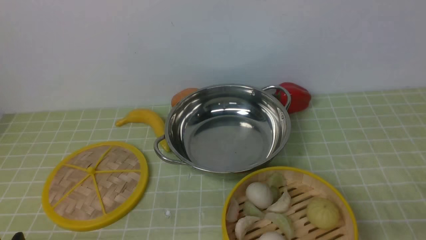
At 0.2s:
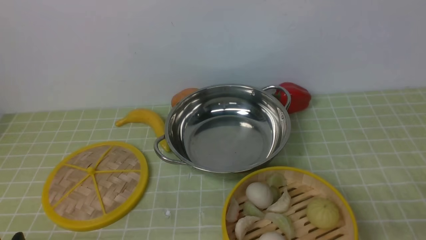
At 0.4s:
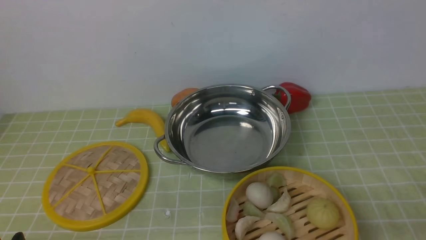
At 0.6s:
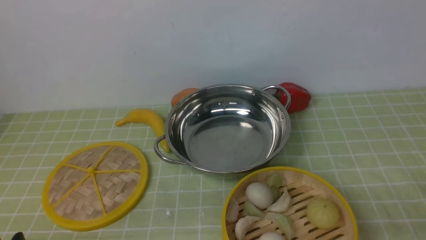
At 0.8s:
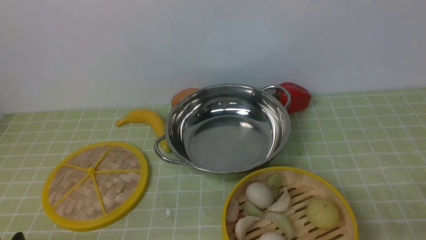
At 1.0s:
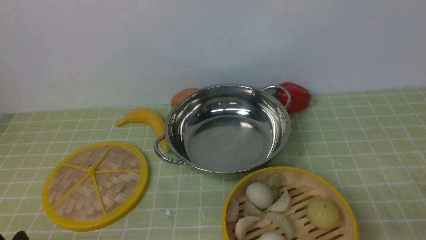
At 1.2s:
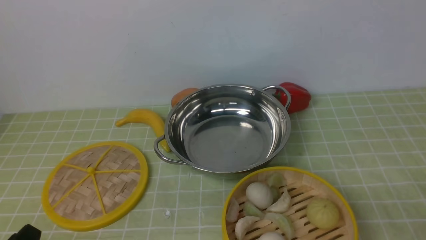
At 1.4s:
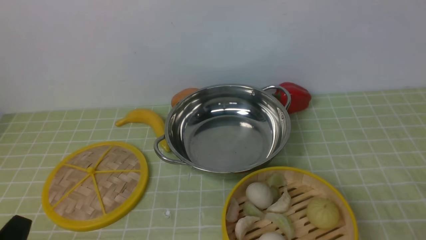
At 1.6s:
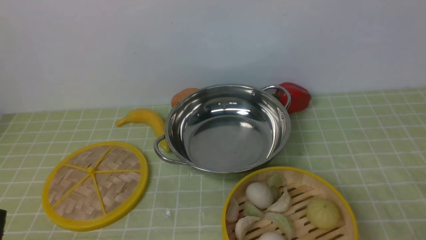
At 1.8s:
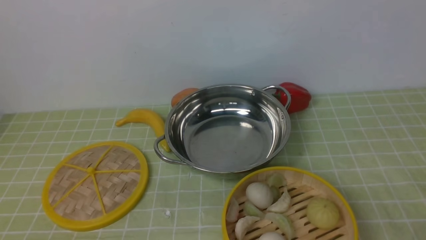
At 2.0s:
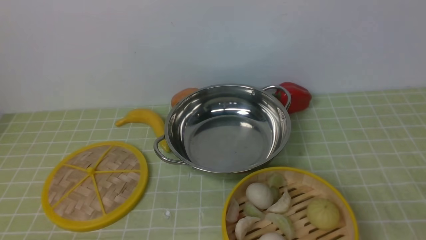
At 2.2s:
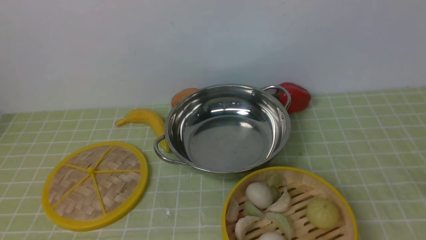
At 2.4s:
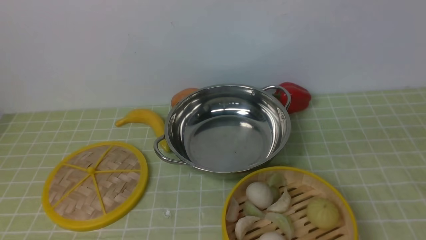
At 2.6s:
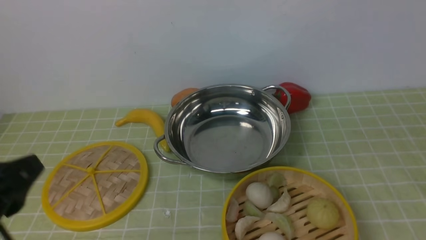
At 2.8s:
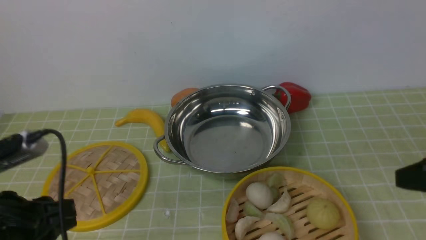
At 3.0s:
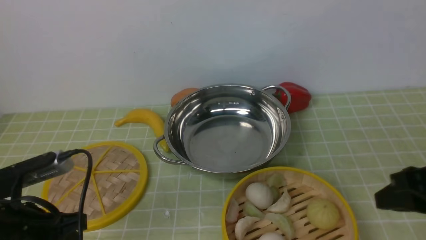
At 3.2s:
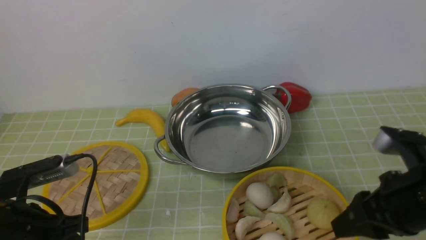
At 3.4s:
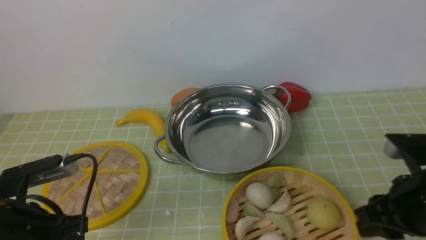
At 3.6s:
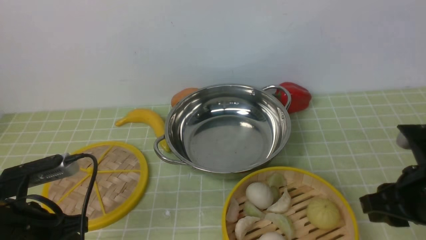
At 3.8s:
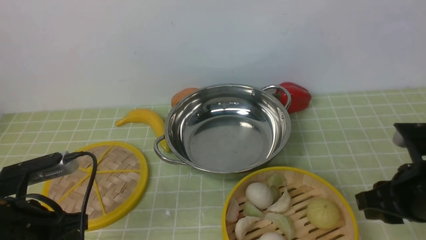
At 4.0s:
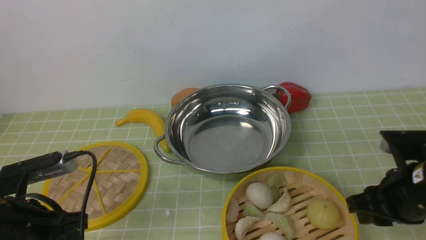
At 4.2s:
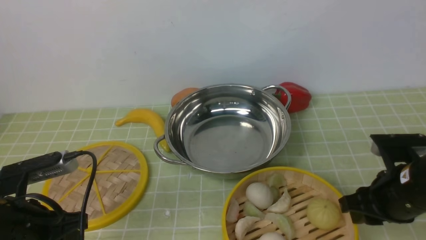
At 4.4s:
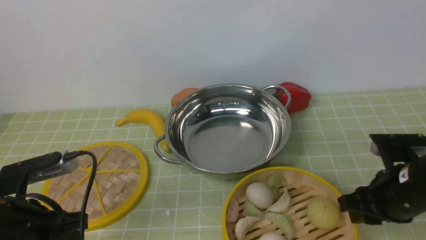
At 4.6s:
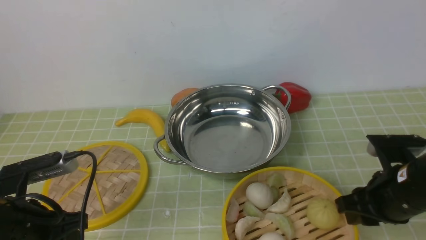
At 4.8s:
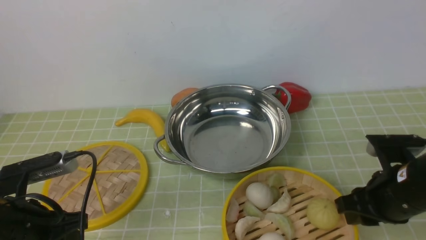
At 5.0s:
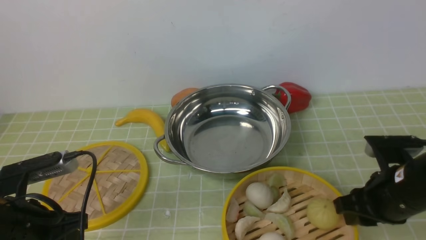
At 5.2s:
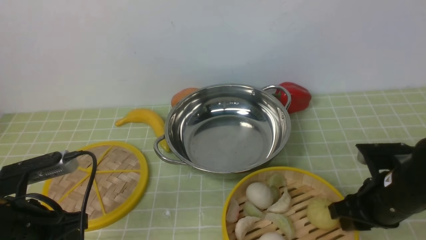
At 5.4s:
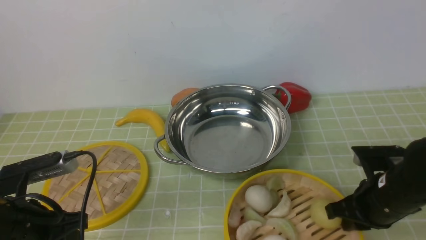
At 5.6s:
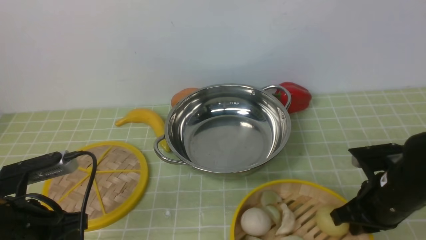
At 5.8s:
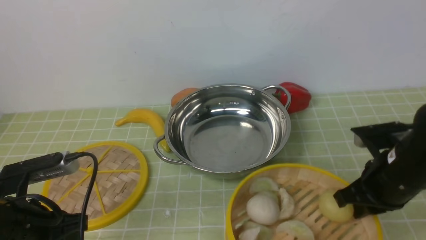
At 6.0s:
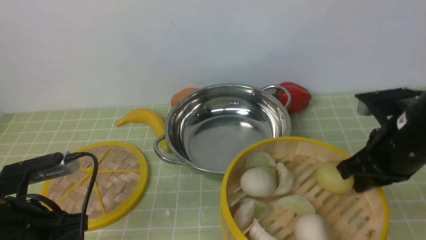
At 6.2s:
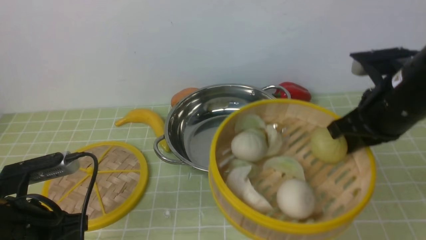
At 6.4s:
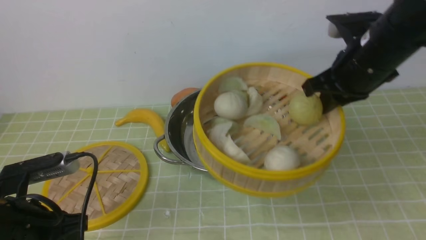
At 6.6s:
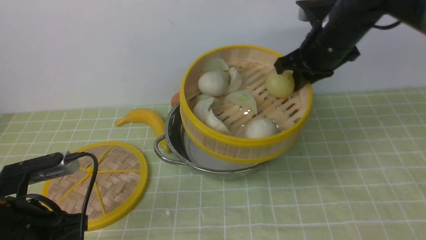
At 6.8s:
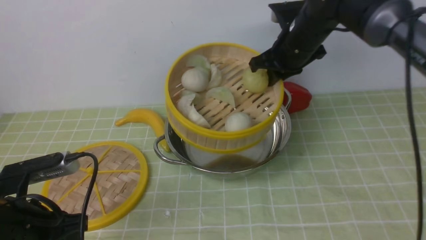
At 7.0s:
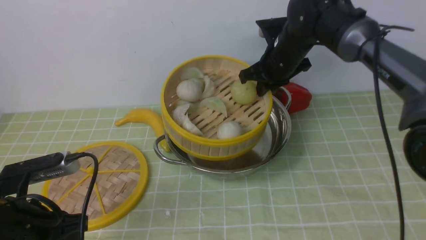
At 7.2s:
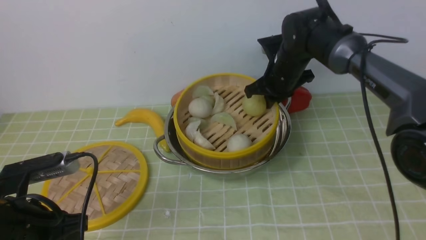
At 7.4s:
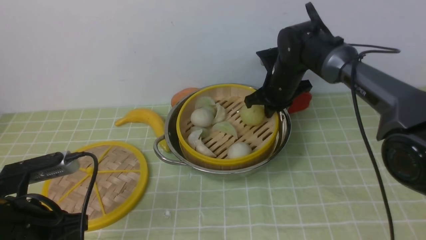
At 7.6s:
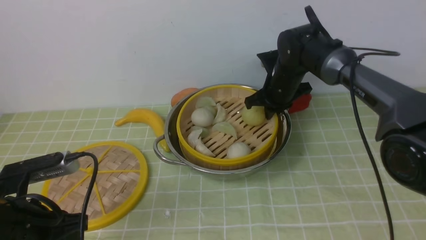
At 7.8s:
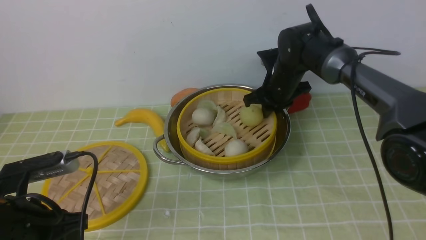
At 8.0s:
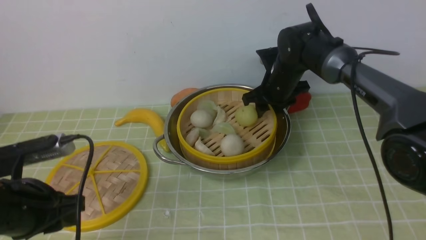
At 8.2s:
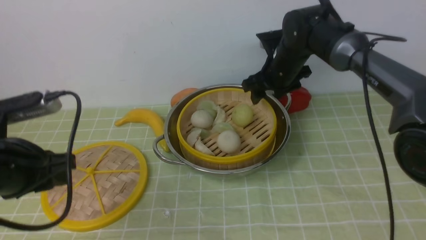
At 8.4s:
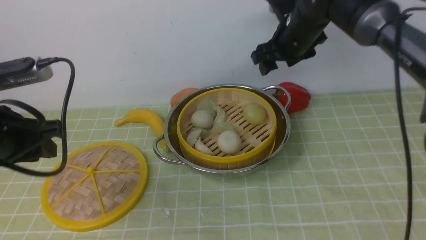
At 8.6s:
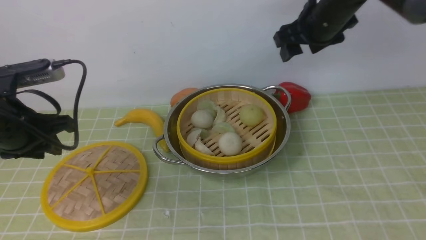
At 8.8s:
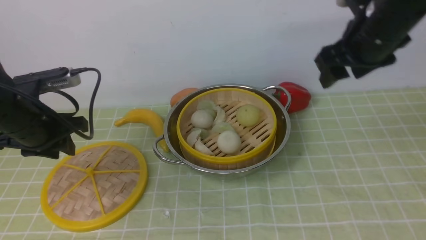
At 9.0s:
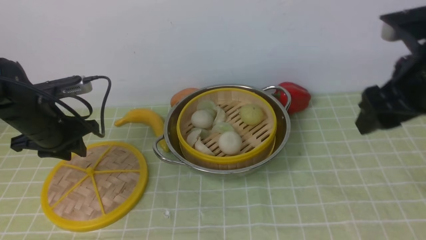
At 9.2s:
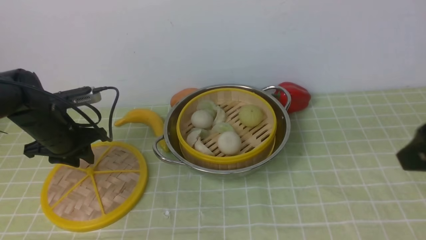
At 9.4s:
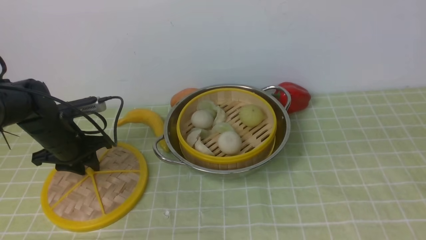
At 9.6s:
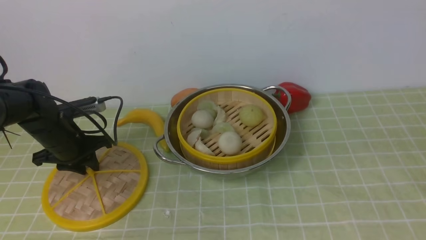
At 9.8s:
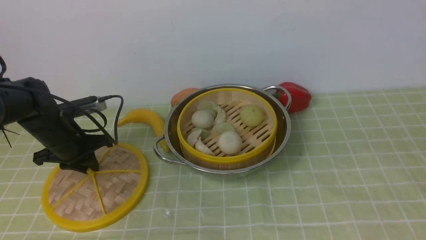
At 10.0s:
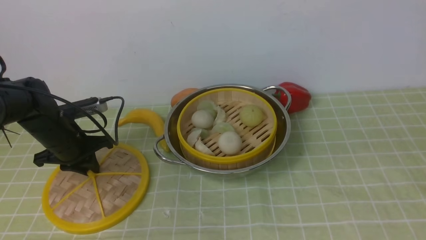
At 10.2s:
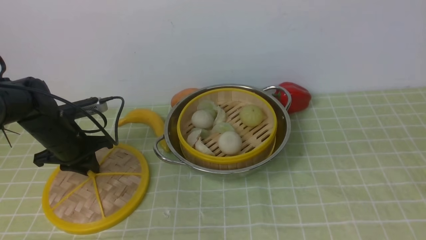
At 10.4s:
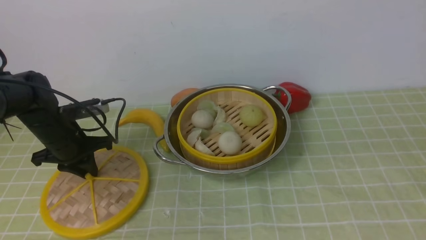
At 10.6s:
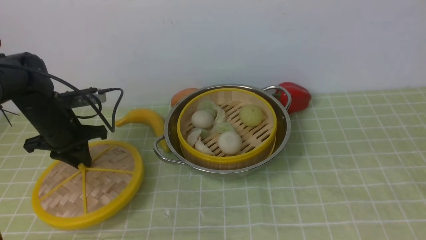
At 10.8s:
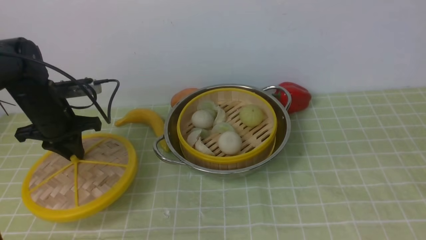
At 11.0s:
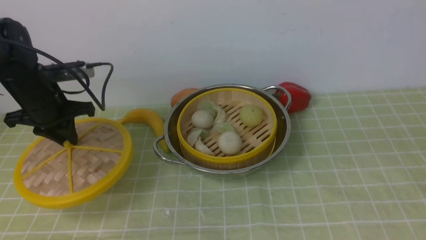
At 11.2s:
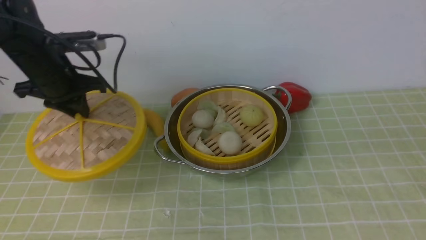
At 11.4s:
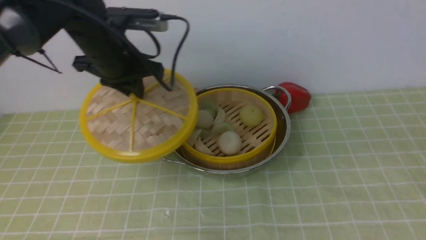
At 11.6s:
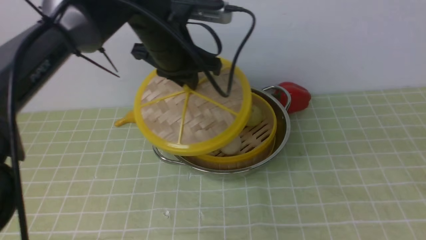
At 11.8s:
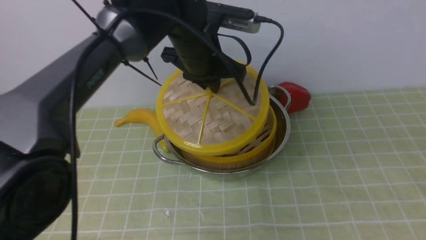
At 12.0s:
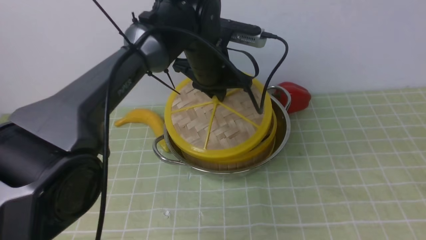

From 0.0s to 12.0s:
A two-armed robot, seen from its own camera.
Task of the whole recording: place the steamer in the pot on the green tablecloth, and put the lid on the steamer.
Step, from 0.0s to 6.2s: use the right arm to lift the steamer closest to it.
Step, from 6.4s to 8.4s: use the right arm to put the steamer into the iron steamer pot in the middle.
Step, from 8.6s to 11.2s: use the left arm to lift the lid of the steamer.
From 1.6s to 3.0s: The right gripper heads forward and upward, covering about 15 cm. The left gripper goes about 10 cm forward.
From 3.0s to 4.4s: The right gripper travels downward by some 5 cm.
From 4.4s to 6.0s: The right gripper heads upward, covering about 5 cm.
From 6.0s to 7.6s: The right gripper heads forward and to the left, covering roughly 25 cm.
From 7.6s to 9.0s: The left gripper shifts about 20 cm forward, while the right gripper goes roughly 30 cm backward, upward and to the right, and opens its fingers.
From 9.0s to 10.4s: The right gripper heads backward, covering about 20 cm.
From 10.4s to 12.0s: The left gripper is displaced to the right by roughly 25 cm.

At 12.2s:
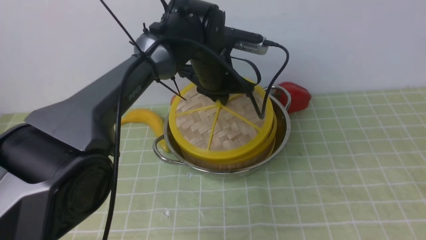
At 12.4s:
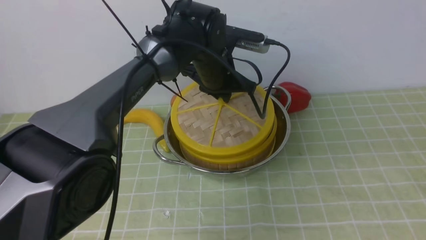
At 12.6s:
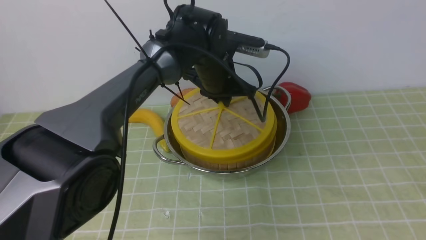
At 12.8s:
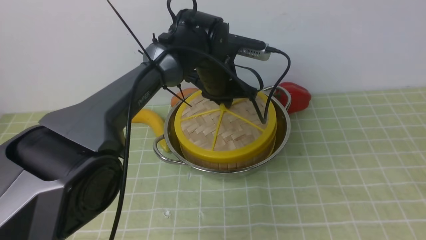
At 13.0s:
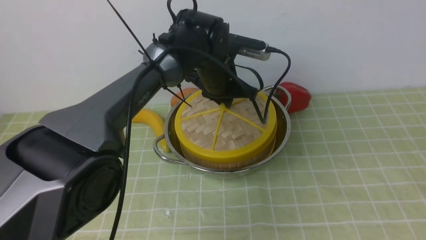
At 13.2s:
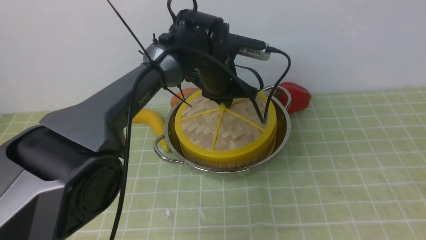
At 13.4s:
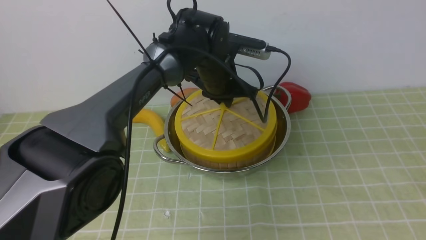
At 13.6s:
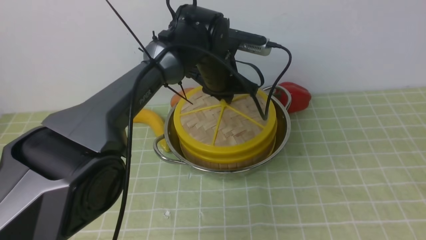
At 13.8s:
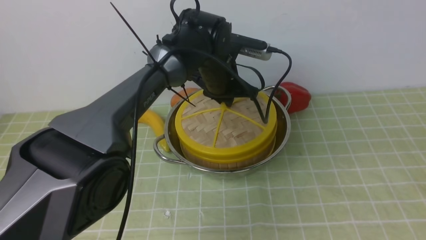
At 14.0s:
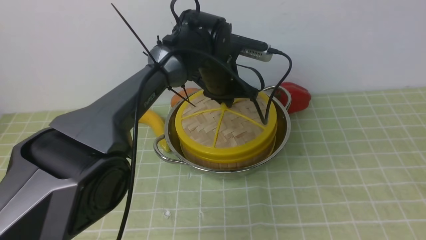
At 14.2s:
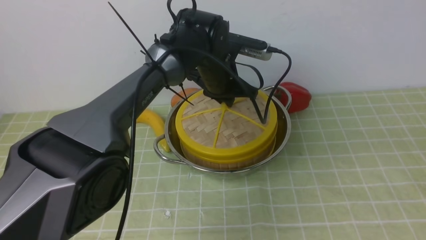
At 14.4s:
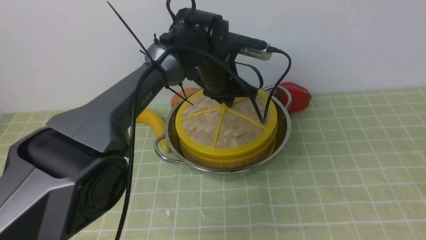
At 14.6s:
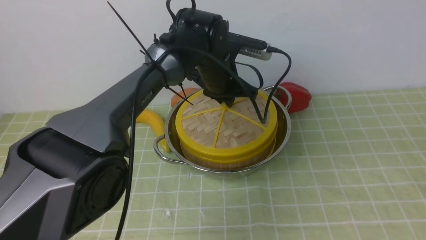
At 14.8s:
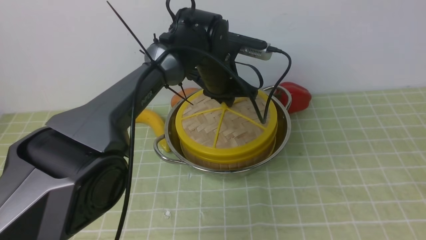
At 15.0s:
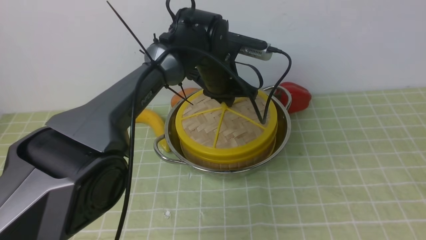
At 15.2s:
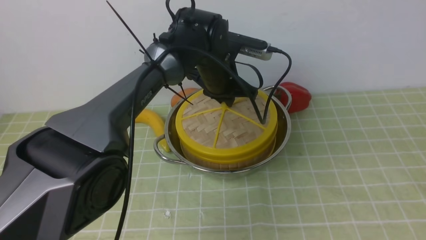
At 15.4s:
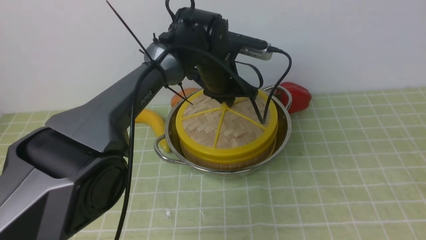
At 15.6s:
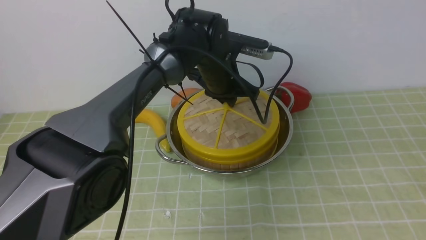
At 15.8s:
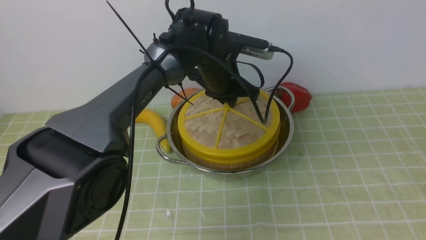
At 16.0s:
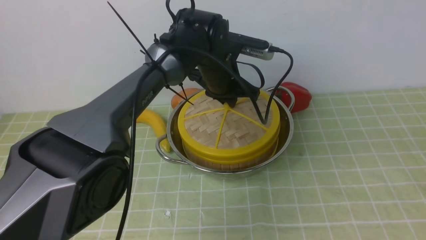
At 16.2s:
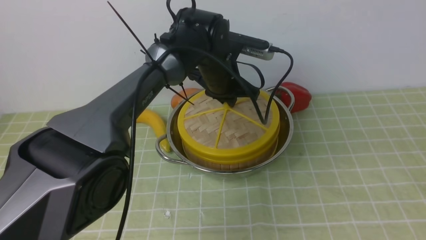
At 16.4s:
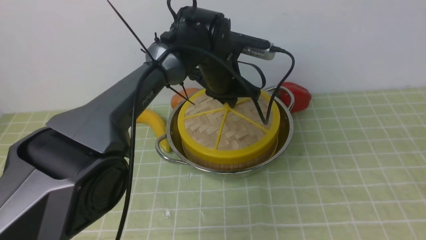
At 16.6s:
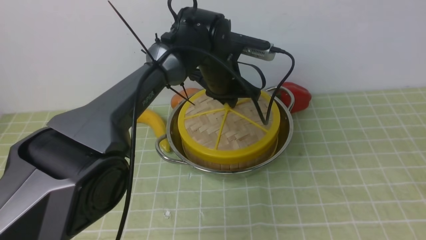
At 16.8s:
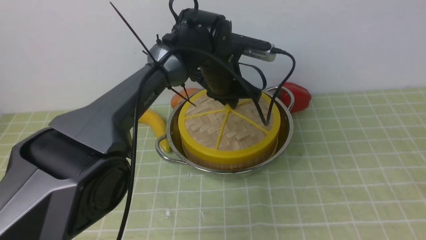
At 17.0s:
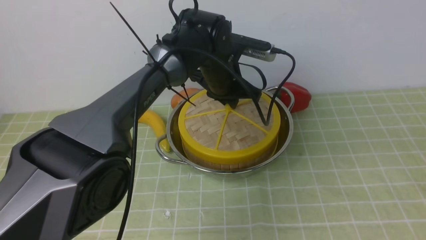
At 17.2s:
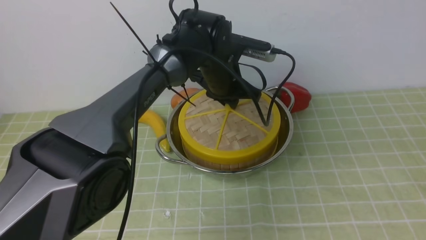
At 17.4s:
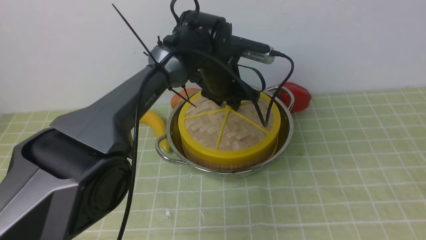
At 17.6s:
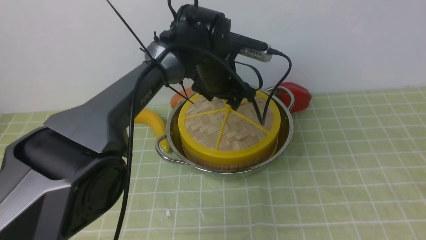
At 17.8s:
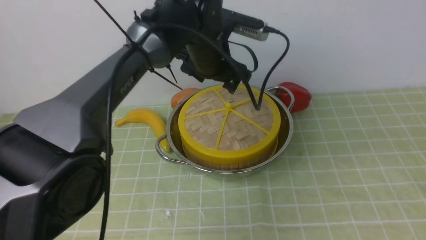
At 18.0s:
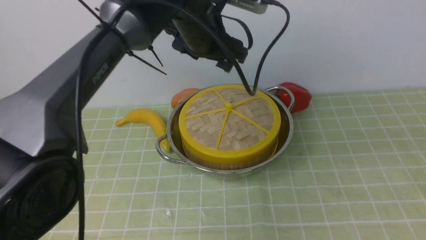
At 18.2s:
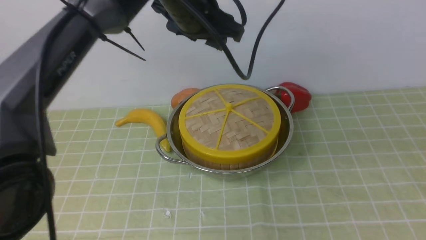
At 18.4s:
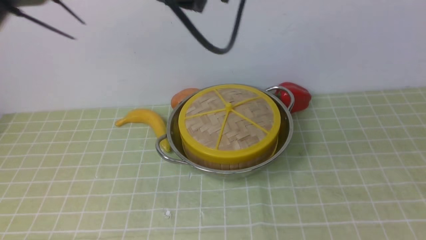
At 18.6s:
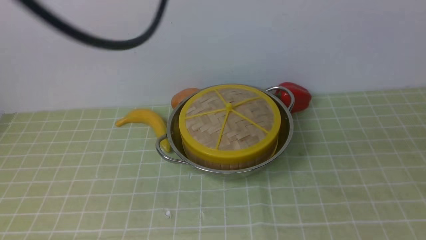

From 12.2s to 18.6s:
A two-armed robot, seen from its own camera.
Task of the whole recording: place the steamer in the pot on the green tablecloth, and put the lid on the steamer.
Step, from 12.2s to 17.8s: use the left arm to place the steamer lid on the steamer.
From 13.8s to 17.0s: Neither gripper changes place.
From 17.0s to 18.6s: The left gripper is displaced upward, backward and to the left by about 35 cm, and opens, then closes again.
